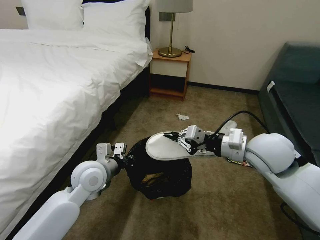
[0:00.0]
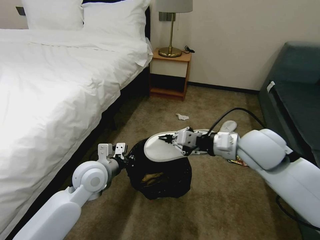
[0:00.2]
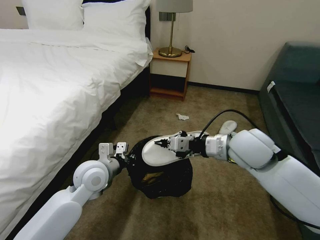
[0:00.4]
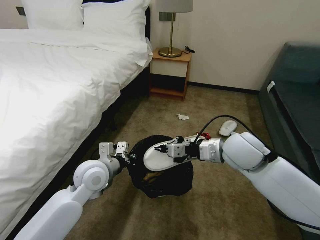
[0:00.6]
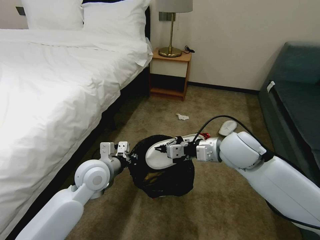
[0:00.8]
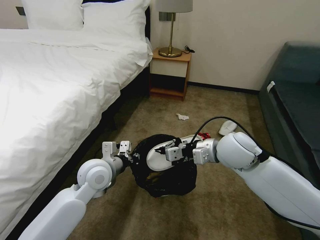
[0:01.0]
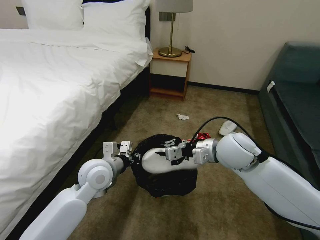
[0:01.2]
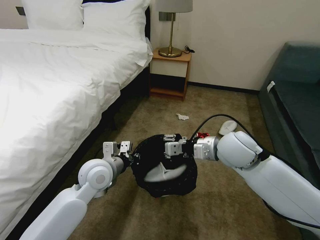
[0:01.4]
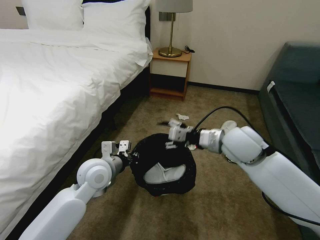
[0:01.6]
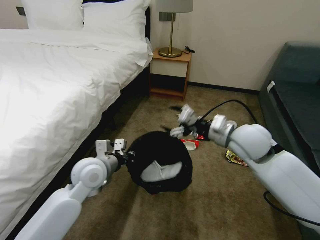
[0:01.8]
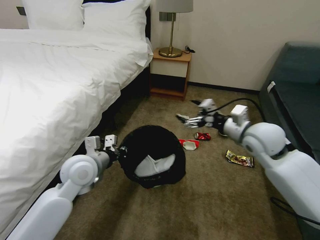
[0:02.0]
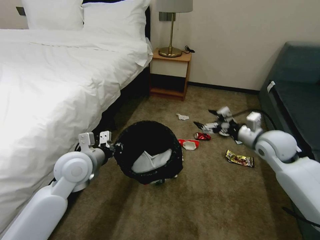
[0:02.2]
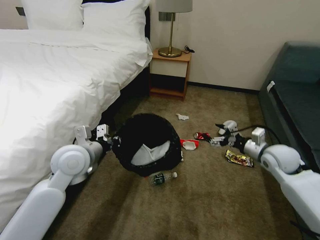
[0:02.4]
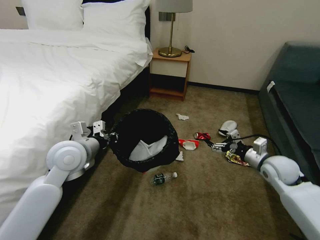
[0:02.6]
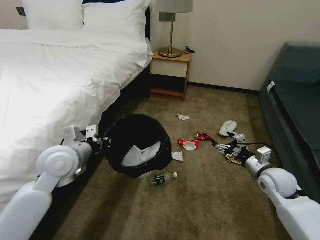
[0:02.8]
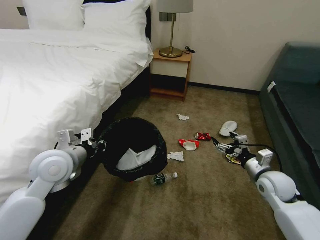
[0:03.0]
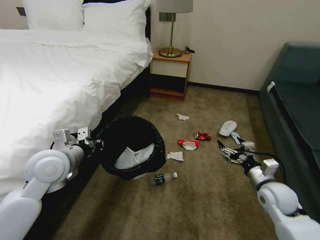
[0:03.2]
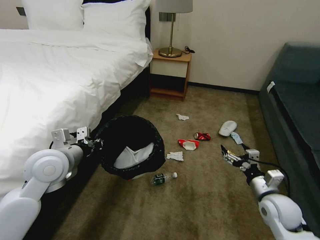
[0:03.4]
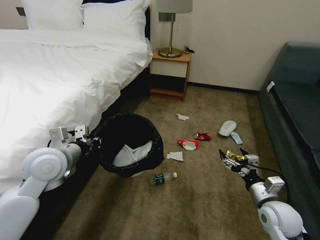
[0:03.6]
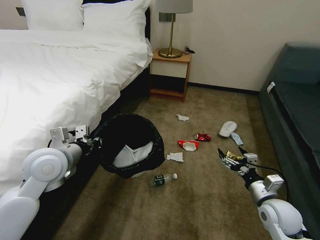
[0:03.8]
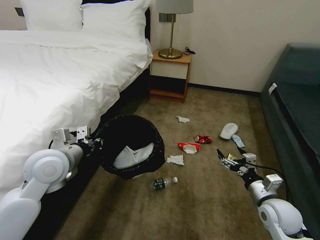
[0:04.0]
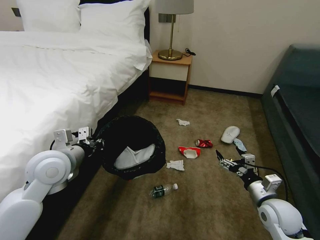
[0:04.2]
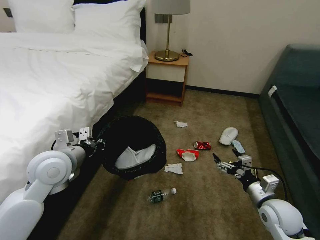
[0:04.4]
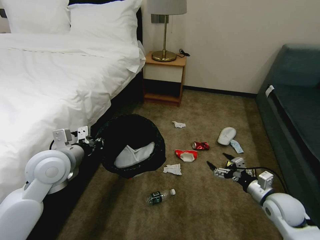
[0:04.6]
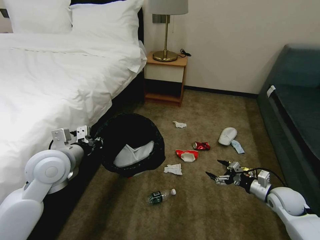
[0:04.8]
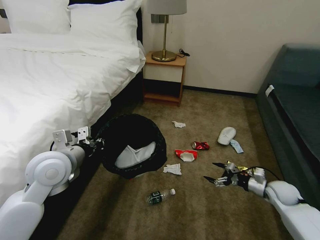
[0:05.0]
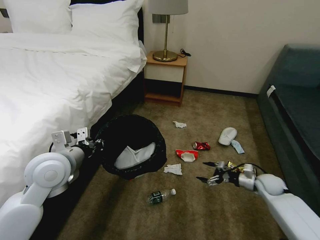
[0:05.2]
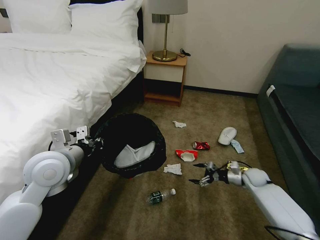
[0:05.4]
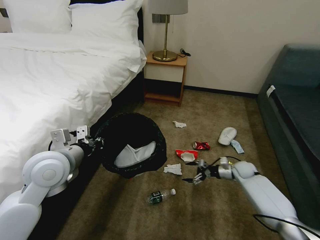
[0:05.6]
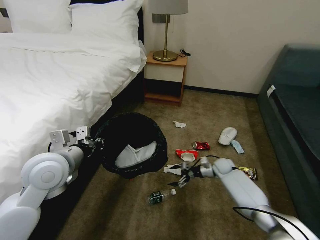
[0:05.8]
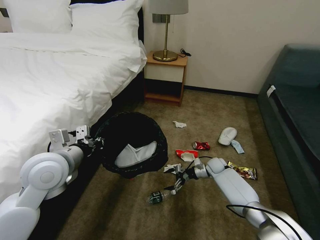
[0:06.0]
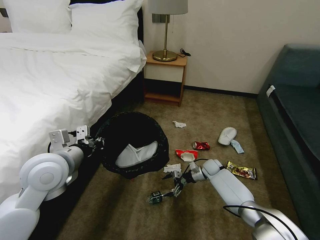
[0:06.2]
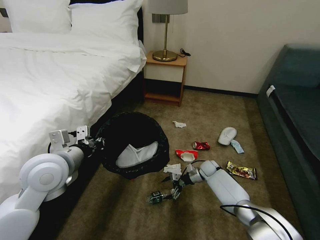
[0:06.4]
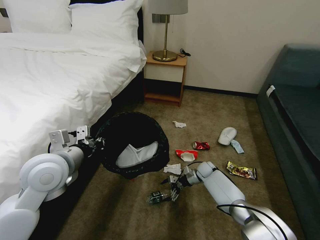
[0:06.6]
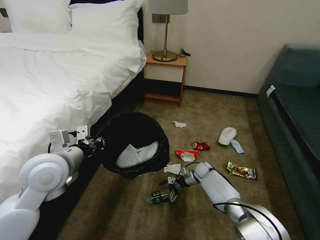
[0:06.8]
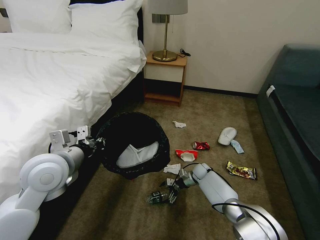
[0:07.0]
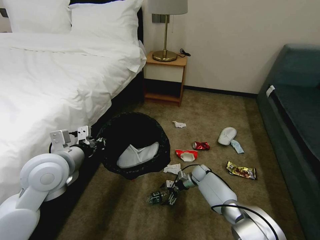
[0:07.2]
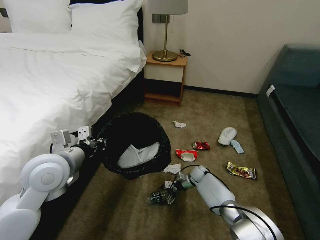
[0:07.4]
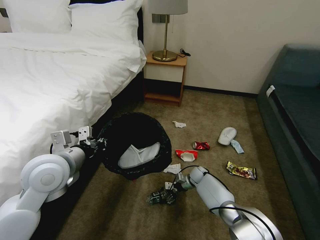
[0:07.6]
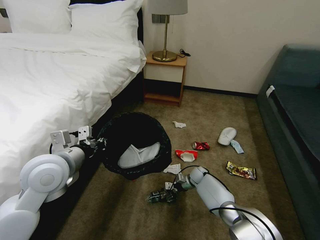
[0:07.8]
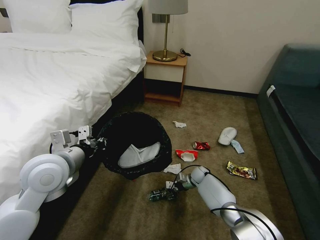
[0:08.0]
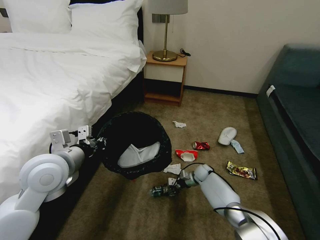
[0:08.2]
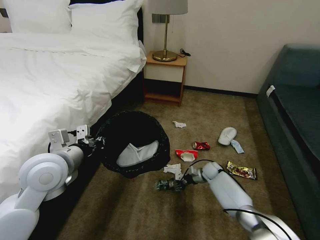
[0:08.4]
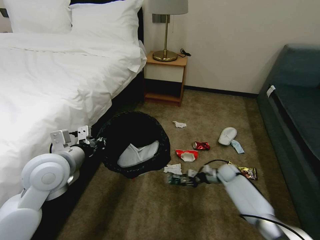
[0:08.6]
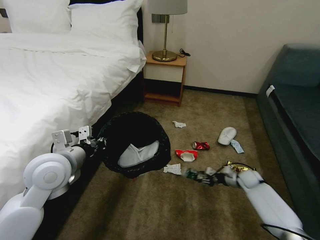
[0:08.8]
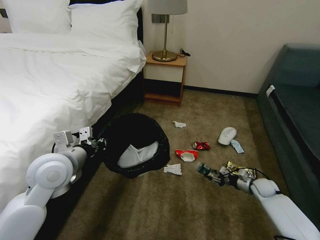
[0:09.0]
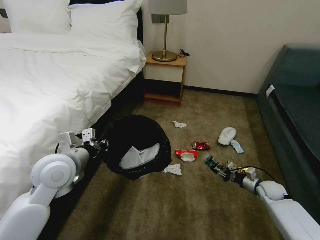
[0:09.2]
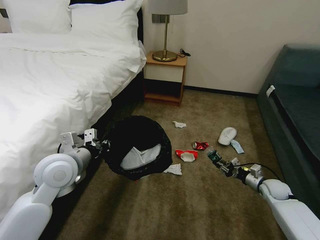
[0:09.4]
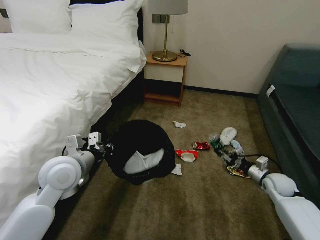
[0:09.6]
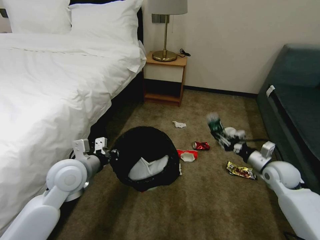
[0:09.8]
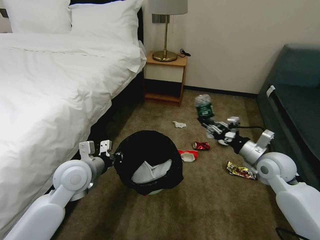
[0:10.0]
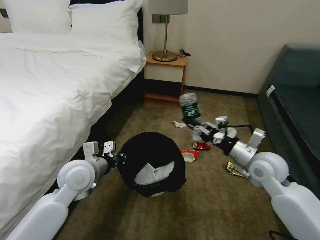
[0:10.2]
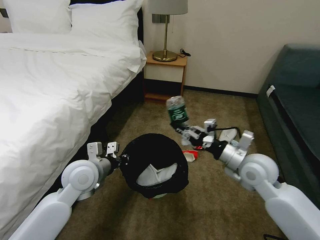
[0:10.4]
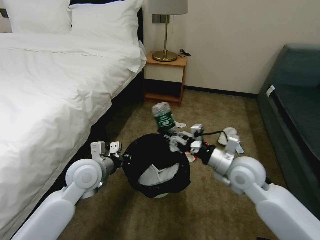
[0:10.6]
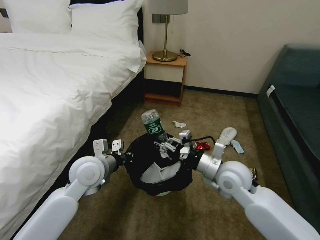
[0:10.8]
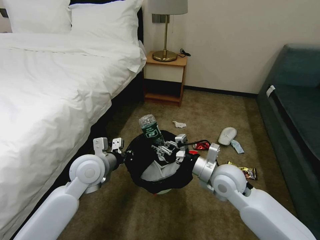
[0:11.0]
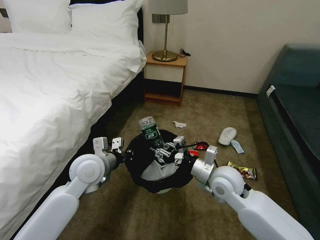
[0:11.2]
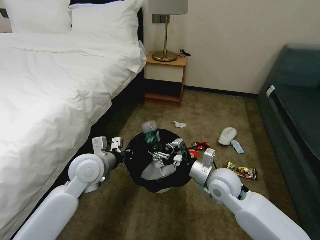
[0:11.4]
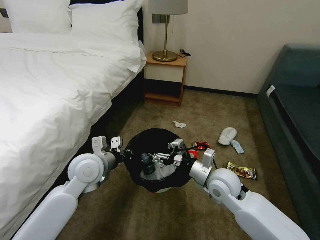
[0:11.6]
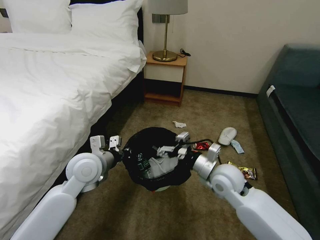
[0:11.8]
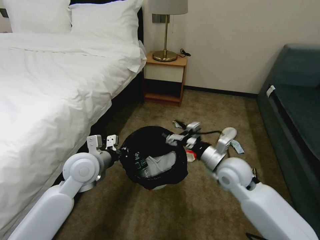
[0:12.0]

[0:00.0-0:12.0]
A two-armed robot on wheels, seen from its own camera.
Task of the whole recording: Pick up the trash bin, then pick up the garbage on the floor and place it into the trash bin.
0:00.0 to 0:01.6: The right gripper ends up some 5 cm from where it was, and opens its fingers.
0:01.6 to 0:03.0: The left gripper moves to the left and upward, roughly 10 cm; the right gripper moves downward and to the right, approximately 25 cm, and opens.
0:03.0 to 0:04.4: The right gripper moves backward, some 10 cm.
0:04.4 to 0:06.0: The right gripper heads forward and downward, covering approximately 30 cm.
0:06.0 to 0:07.6: The right gripper is displaced to the left and downward by some 10 cm.
0:07.6 to 0:09.0: The right gripper moves to the right, some 25 cm, and closes.
0:09.0 to 0:10.4: The right gripper goes roughly 30 cm upward and to the left, while the left gripper travels downward by about 5 cm.
0:10.4 to 0:12.0: The right gripper opens its fingers.

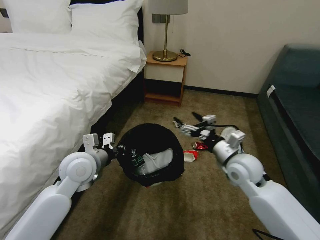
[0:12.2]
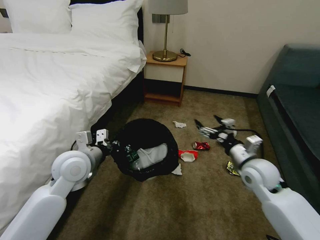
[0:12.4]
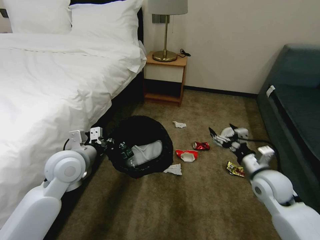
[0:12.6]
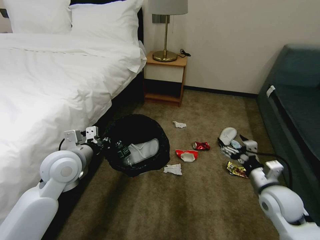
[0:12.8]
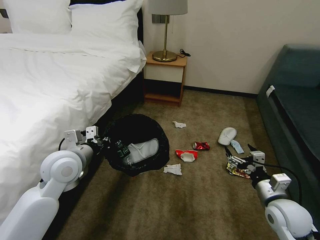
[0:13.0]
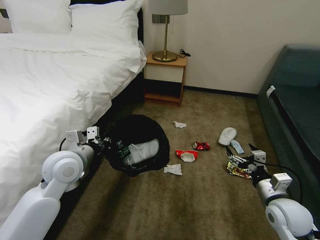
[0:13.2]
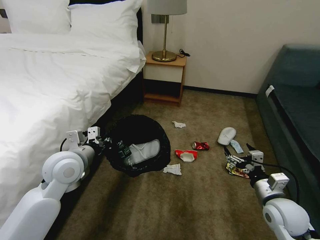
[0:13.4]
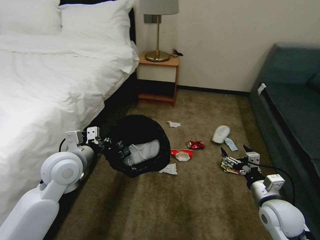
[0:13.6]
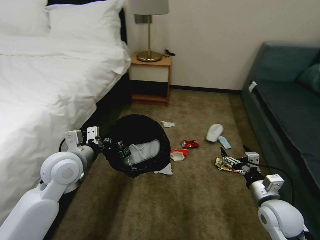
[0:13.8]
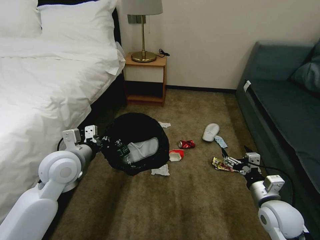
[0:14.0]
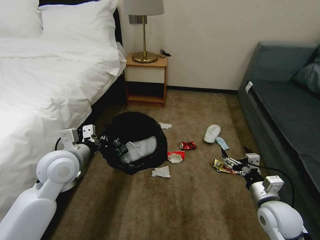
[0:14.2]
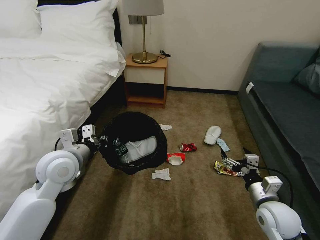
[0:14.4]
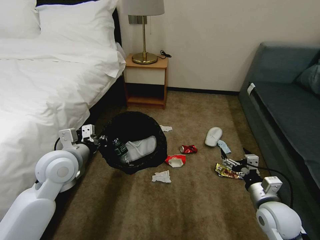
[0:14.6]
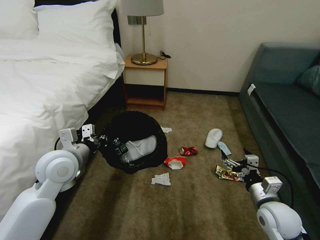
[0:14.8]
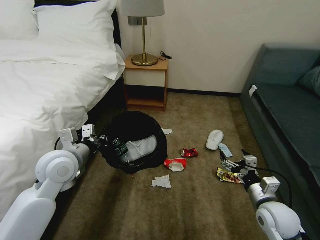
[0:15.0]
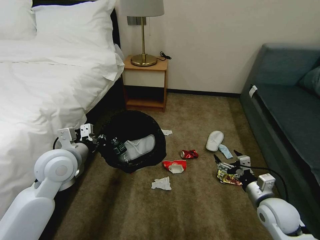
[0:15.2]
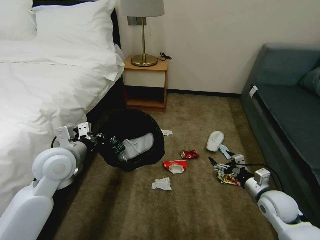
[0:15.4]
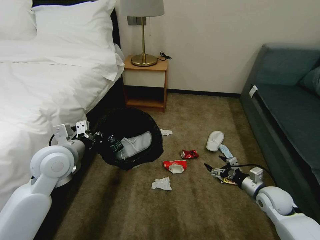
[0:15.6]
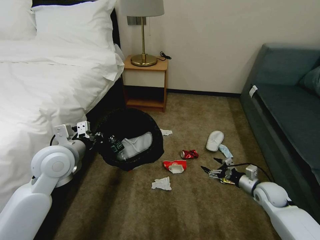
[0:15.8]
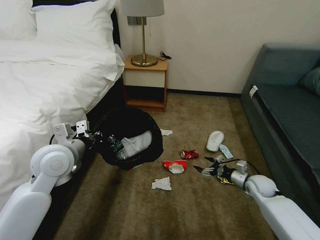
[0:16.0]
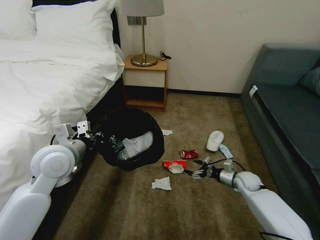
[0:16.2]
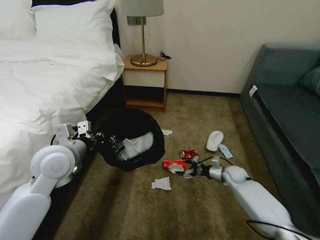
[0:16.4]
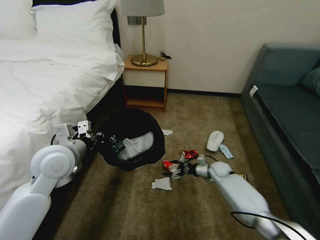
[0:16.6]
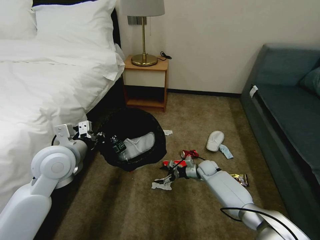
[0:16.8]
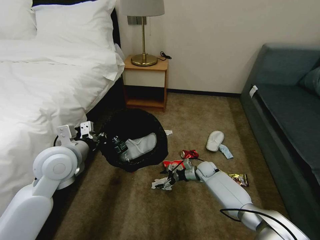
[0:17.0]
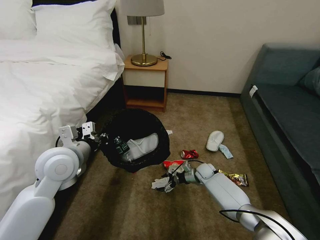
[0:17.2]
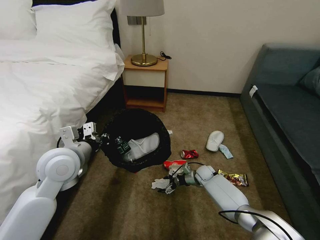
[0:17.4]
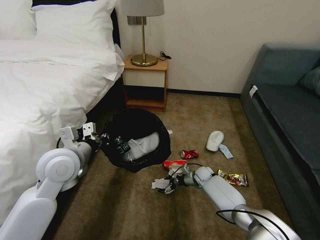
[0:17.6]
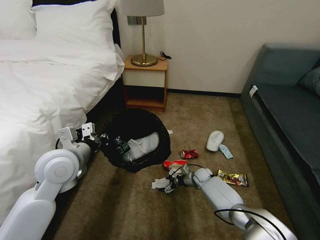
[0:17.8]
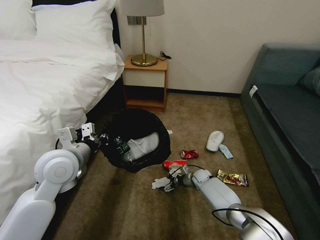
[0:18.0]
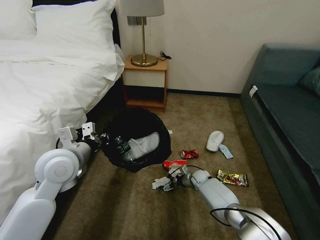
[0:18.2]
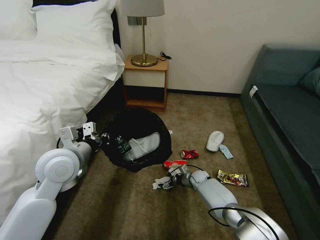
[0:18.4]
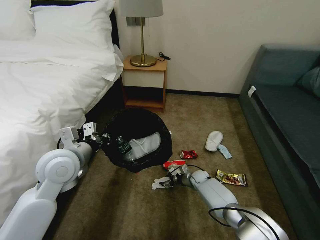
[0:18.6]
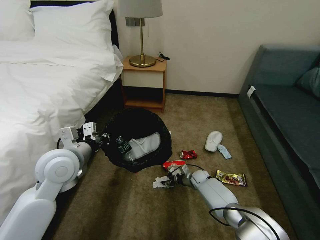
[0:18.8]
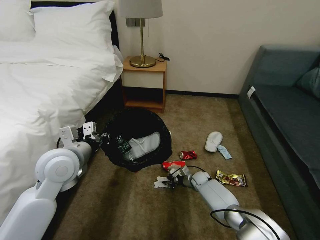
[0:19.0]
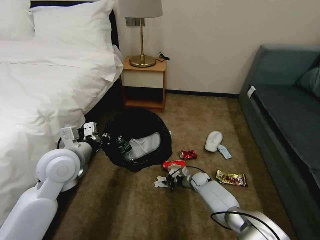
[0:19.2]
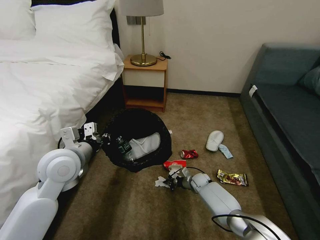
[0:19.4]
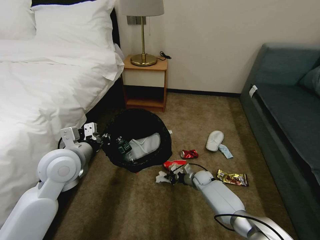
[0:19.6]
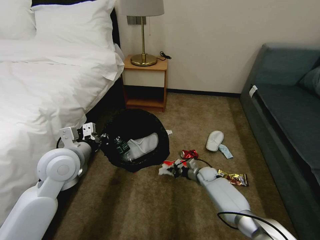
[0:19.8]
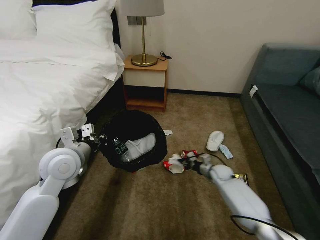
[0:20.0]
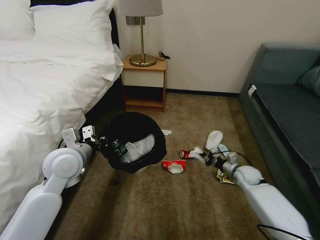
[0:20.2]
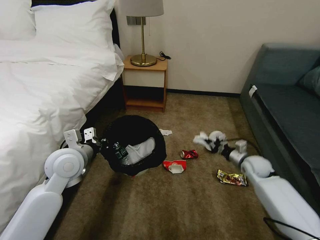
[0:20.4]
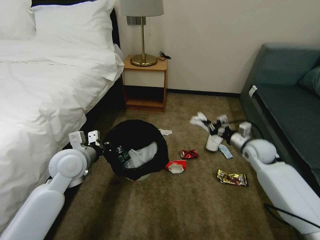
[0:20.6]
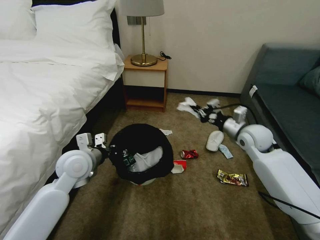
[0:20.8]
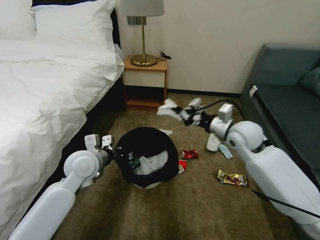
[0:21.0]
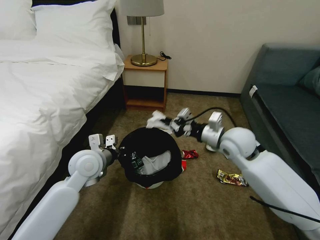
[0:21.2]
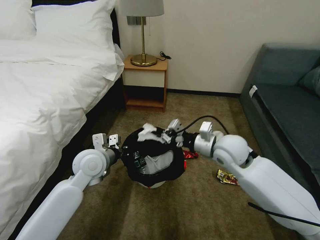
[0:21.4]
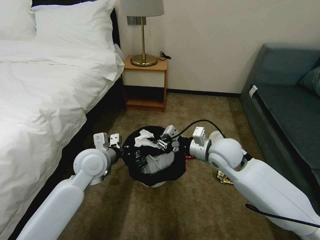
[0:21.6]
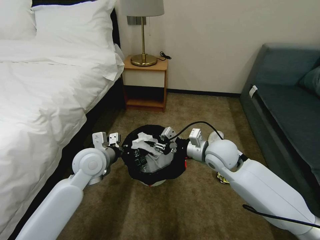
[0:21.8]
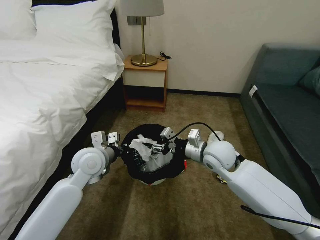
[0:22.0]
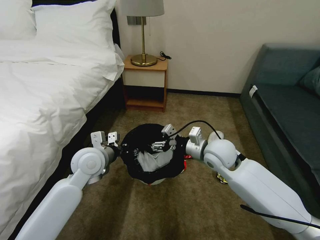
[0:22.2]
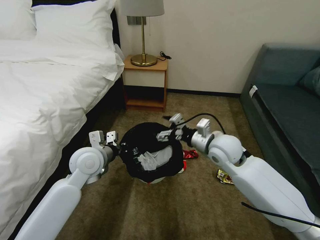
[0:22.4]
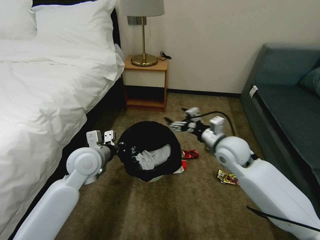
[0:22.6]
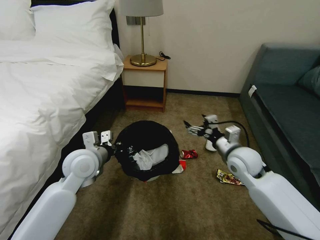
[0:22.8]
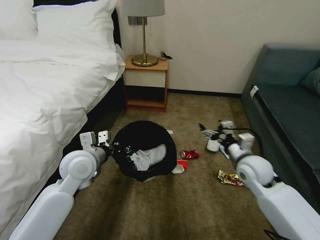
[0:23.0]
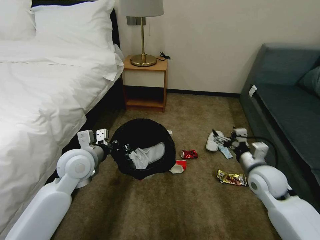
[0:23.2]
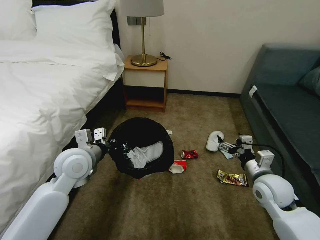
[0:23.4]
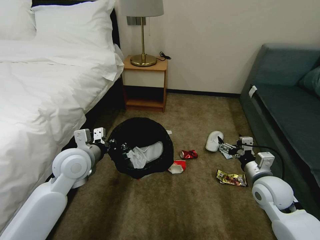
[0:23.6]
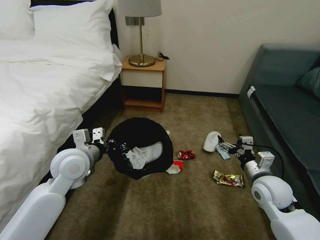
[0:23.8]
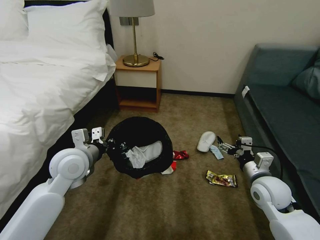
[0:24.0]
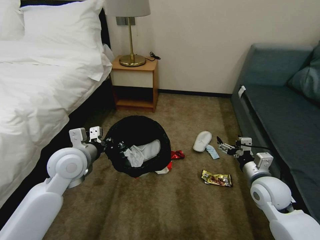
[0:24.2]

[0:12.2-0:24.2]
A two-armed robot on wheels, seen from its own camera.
Task of the whole recording: Pick up the trash bin, then pick up the garbage on the floor and place it into the trash bin.
0:12.2 to 0:13.8: The right gripper goes roughly 15 cm backward, to the right and downward.
0:13.8 to 0:15.2: The grippers stay close to where they were, moving slightly.
0:15.2 to 0:16.6: The right gripper goes some 25 cm forward and downward.
0:16.6 to 0:18.2: The right gripper shifts some 10 cm downward and to the left.
0:18.2 to 0:19.8: The right gripper shifts by some 5 cm, and closes.
0:19.8 to 0:21.2: The right gripper travels upward by roughly 35 cm; the left gripper is displaced downward by some 5 cm.
0:21.2 to 0:22.6: The right gripper opens.
0:22.6 to 0:24.2: The right gripper travels to the right, backward and downward by about 20 cm.
